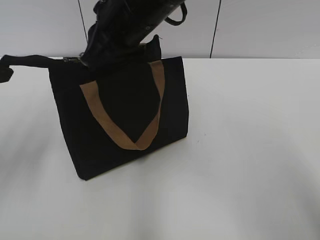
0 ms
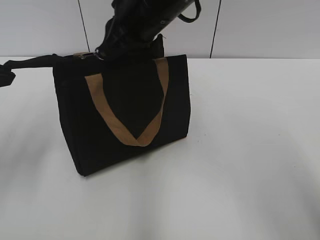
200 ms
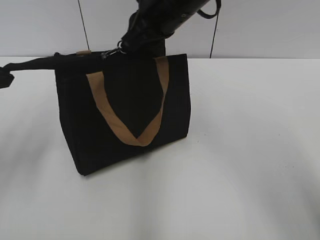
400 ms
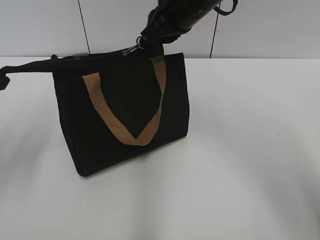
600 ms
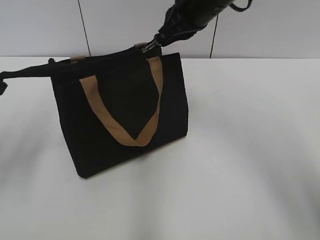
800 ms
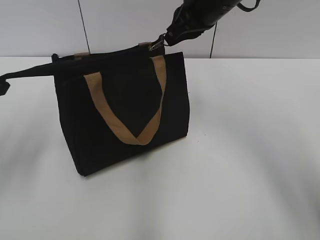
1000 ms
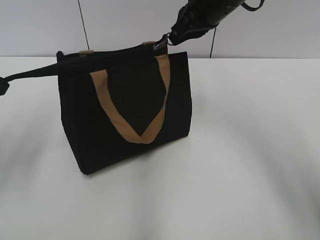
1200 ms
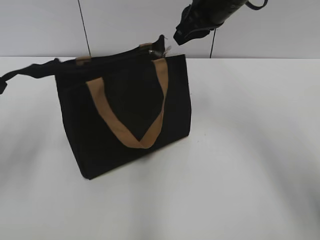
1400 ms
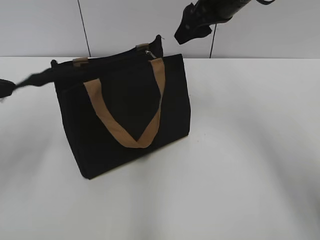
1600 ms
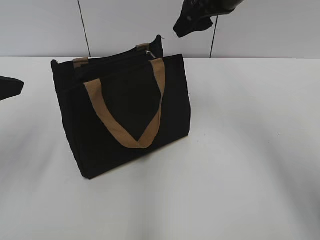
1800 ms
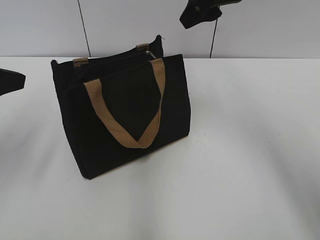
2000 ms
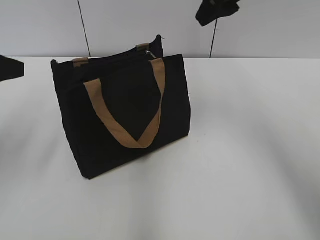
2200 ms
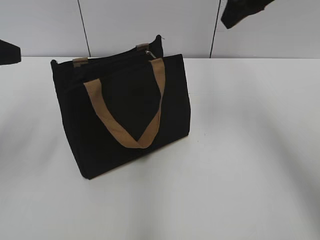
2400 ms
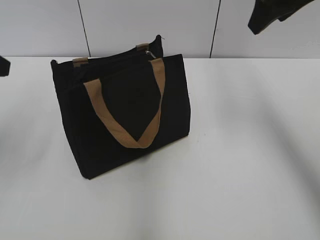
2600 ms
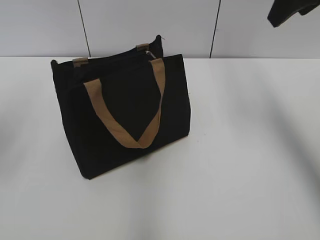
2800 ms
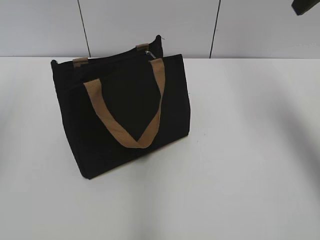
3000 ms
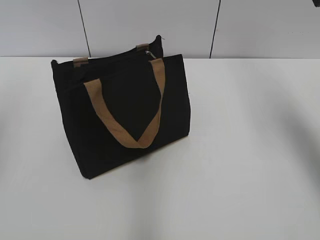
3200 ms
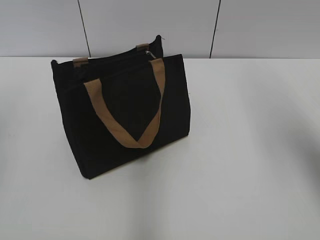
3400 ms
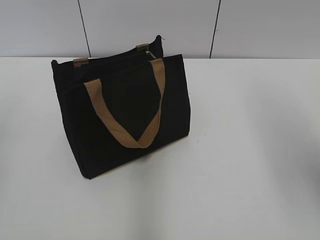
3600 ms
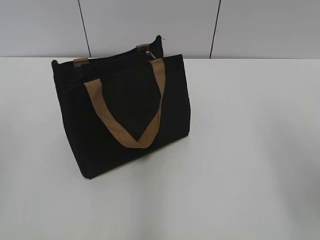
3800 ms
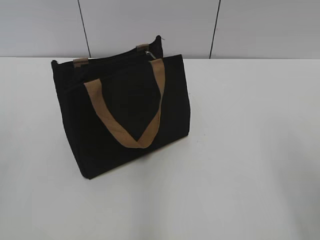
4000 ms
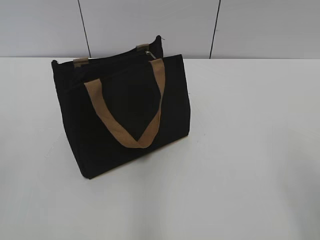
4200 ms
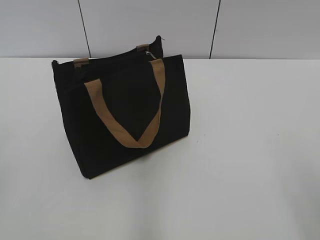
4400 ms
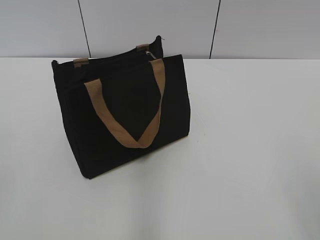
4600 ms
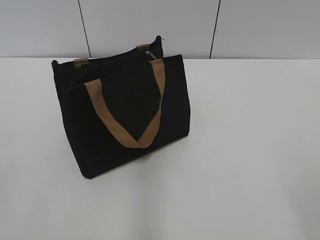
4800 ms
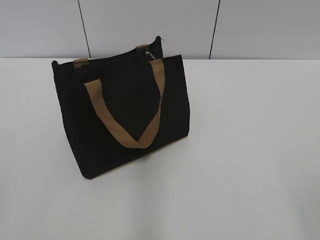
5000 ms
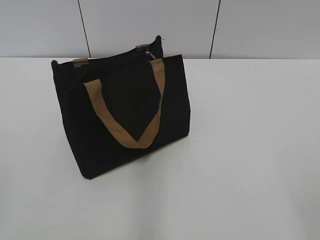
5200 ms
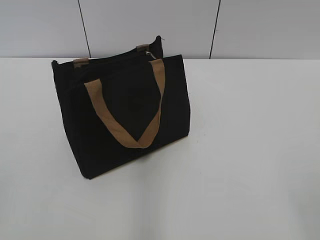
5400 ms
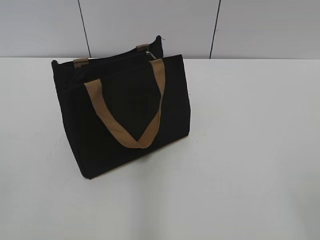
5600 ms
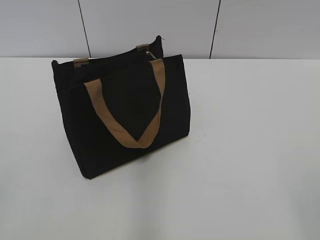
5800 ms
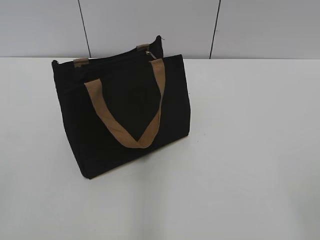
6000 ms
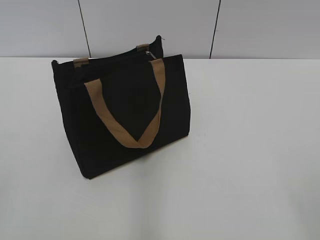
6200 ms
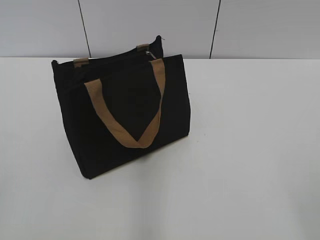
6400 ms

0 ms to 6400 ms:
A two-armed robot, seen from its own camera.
0 ms to 1600 ms: The right gripper heads to the right and forward, covering about 15 cm, and opens.
1600 ms to 3200 ms: The right gripper travels to the right, upward and backward by some 20 cm; the left gripper travels upward by roughly 5 cm, and opens up.
3200 ms to 4800 ms: The right gripper travels backward and downward by roughly 35 cm.

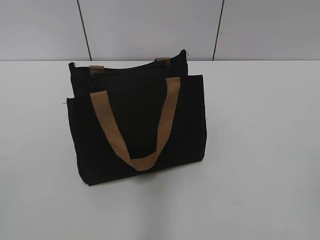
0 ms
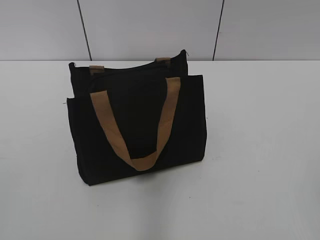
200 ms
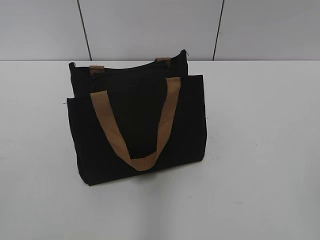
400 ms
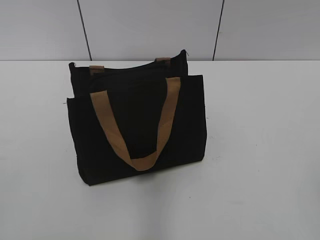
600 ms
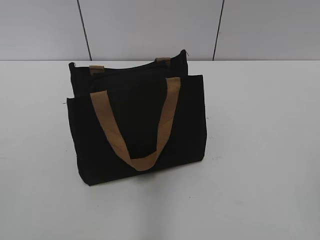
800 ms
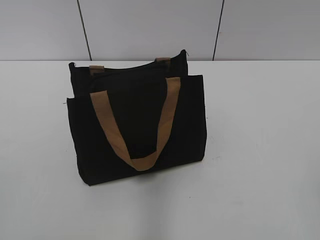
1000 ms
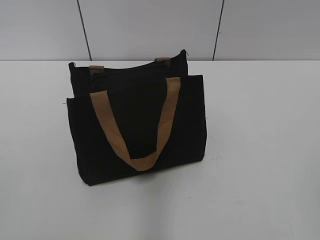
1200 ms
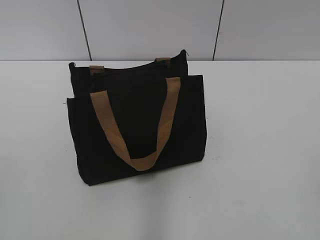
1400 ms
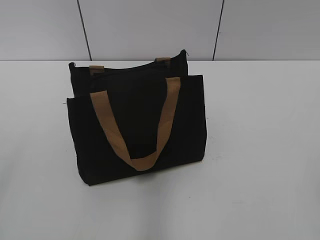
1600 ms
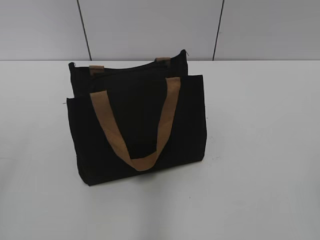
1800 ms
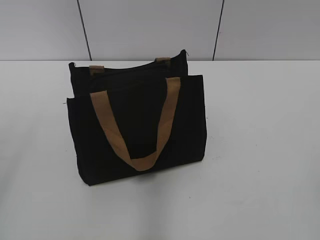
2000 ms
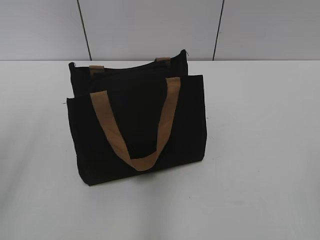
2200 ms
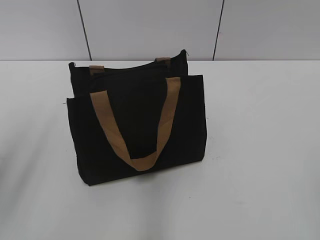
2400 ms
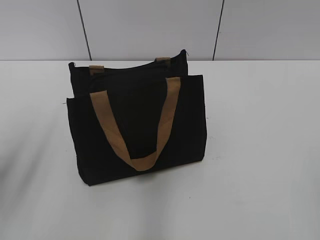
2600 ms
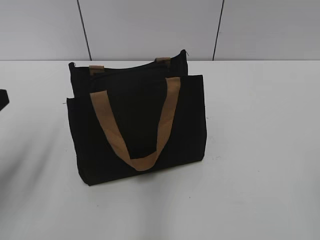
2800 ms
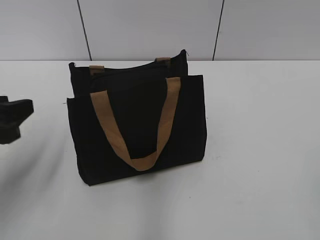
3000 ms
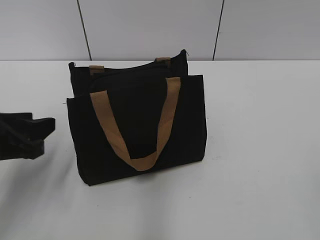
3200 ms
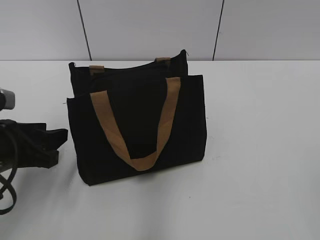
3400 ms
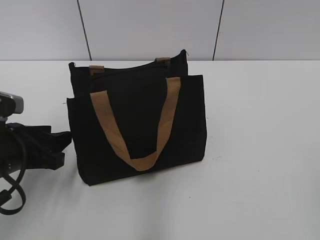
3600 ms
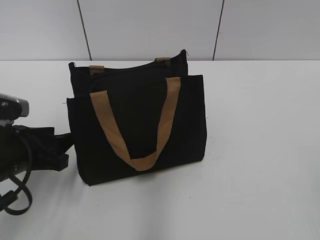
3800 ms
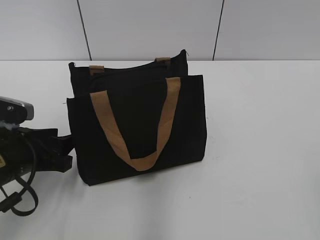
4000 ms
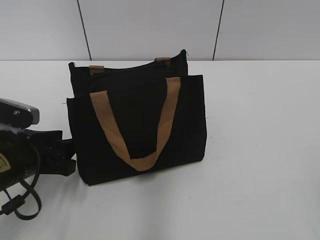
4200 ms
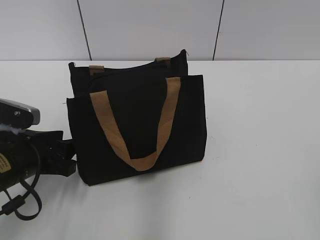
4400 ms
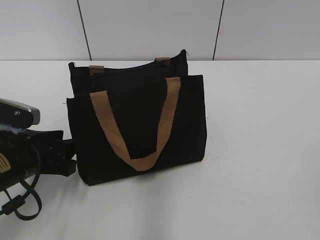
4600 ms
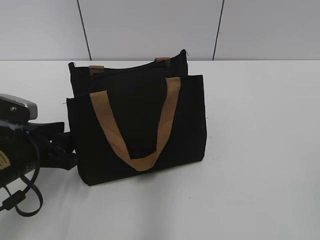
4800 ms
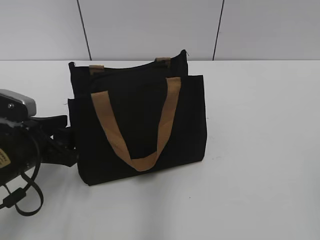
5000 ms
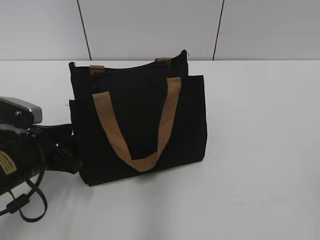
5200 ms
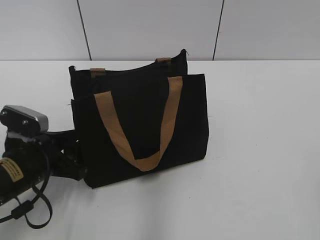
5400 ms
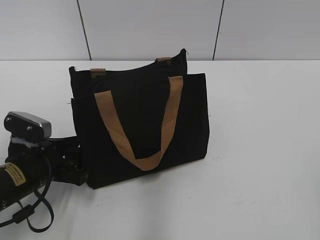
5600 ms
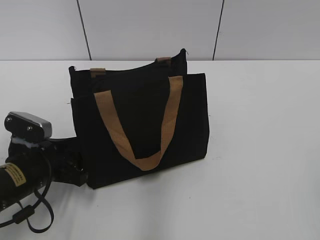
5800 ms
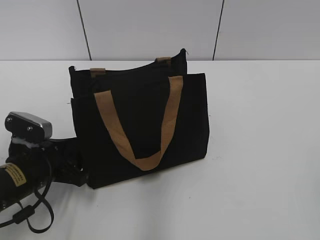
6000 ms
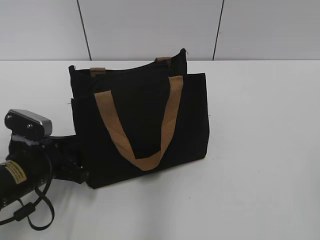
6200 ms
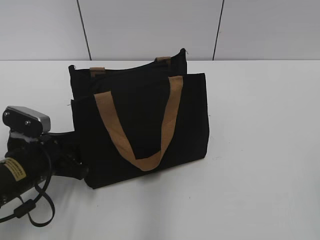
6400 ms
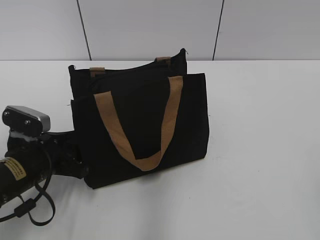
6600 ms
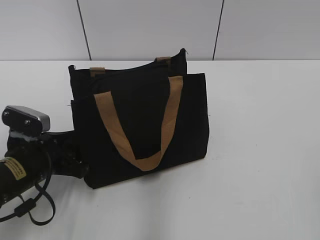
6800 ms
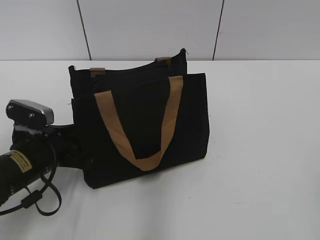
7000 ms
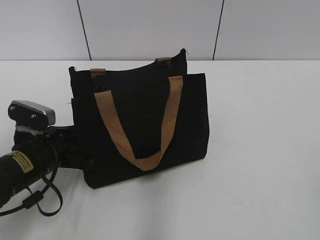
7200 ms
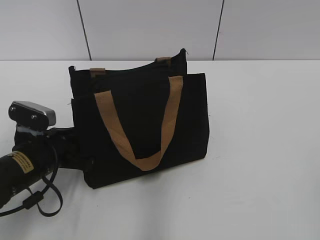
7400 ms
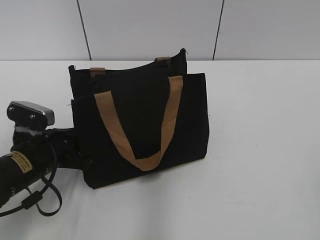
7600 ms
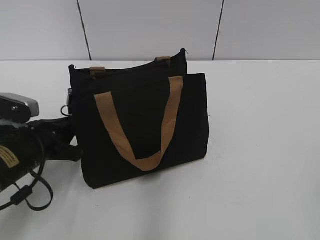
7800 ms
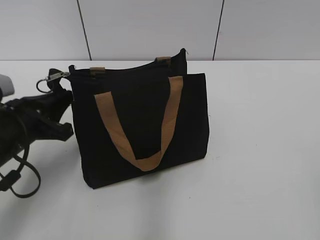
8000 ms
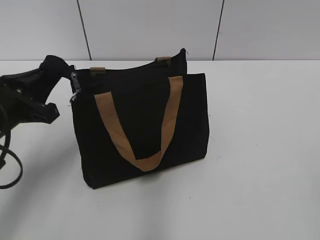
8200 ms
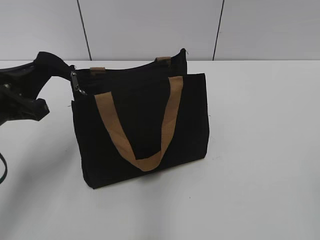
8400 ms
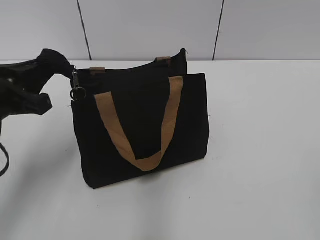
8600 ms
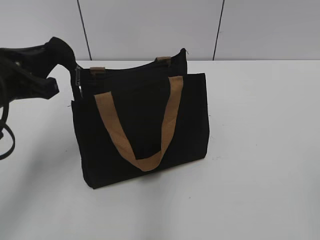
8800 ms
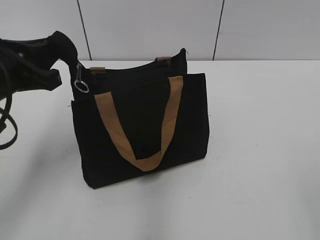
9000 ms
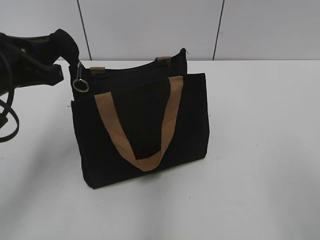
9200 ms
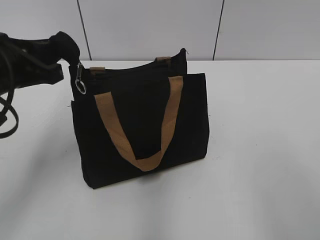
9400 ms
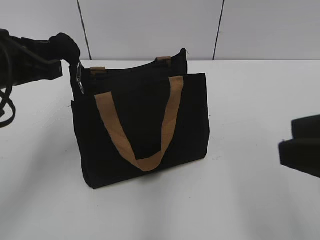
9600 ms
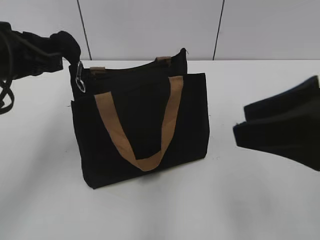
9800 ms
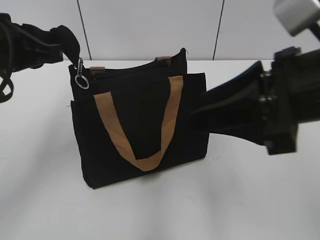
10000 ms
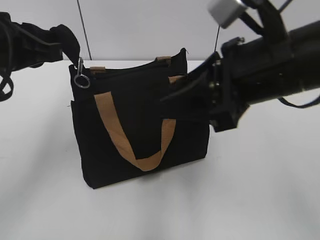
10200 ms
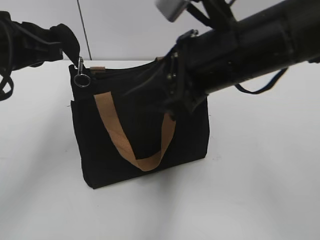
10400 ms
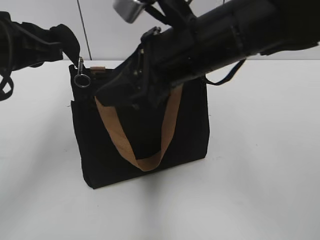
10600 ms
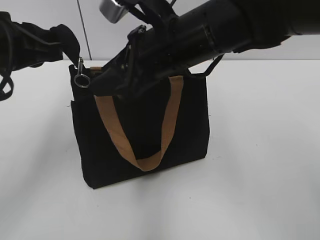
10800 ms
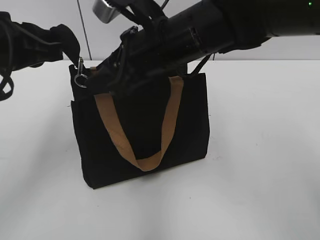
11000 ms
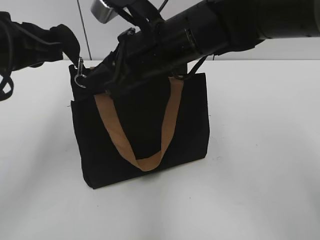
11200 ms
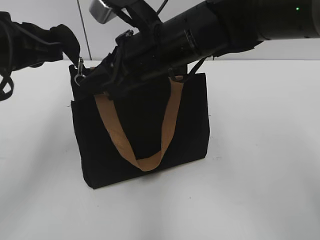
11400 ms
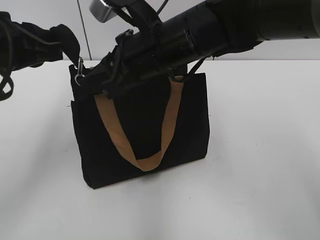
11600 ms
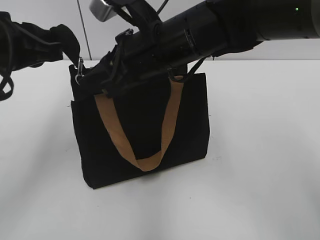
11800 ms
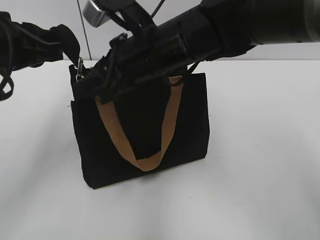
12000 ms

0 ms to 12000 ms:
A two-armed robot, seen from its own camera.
1600 ms to 3000 ms: The left gripper heads forward and downward, covering roughly 20 cm.
3000 ms to 4400 ms: The left gripper shifts roughly 10 cm downward.
4400 ms to 6000 ms: The grippers move only a little.
6000 ms to 7600 ms: The left gripper closes.
7600 ms to 9000 ms: The left gripper shifts some 15 cm upward.
9000 ms to 10400 ms: The right gripper heads forward and to the left, covering about 30 cm.
10400 ms to 12000 ms: The right gripper moves to the left and forward, approximately 10 cm.

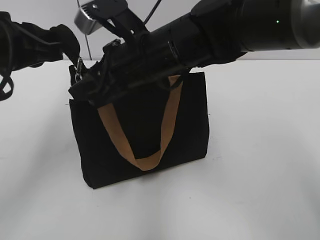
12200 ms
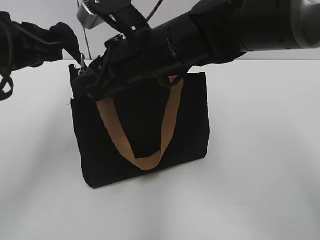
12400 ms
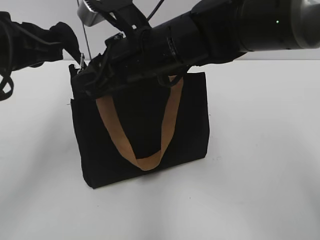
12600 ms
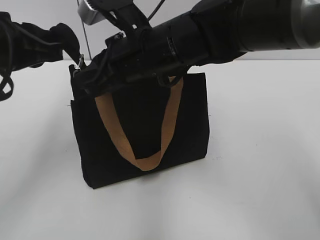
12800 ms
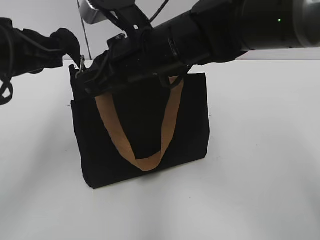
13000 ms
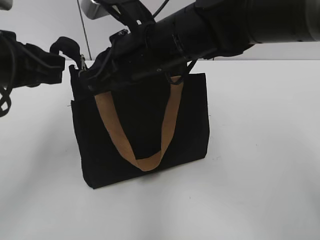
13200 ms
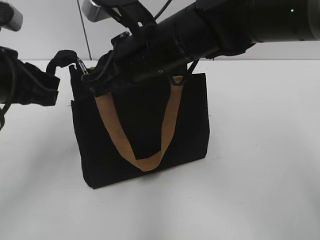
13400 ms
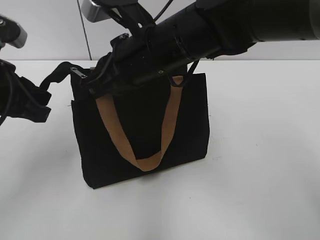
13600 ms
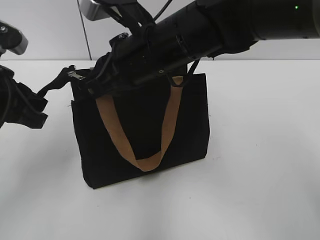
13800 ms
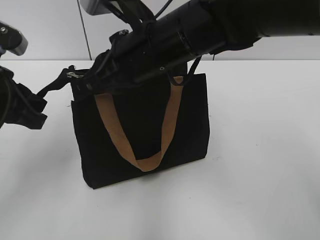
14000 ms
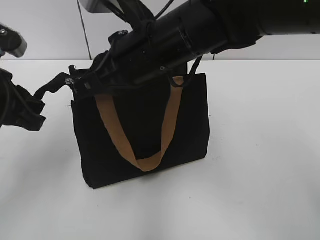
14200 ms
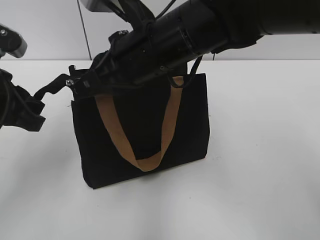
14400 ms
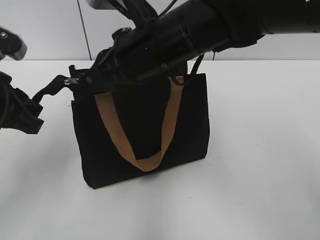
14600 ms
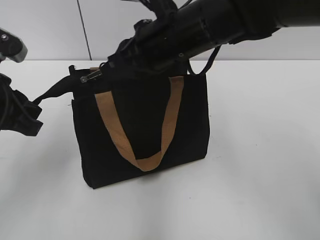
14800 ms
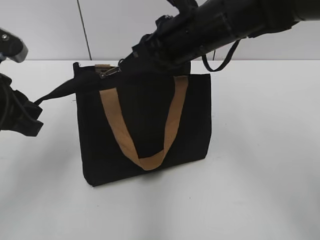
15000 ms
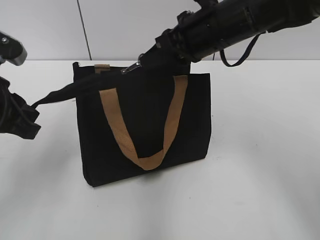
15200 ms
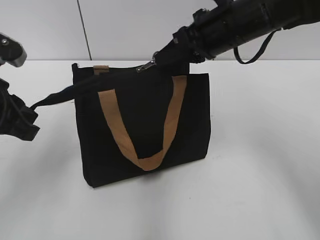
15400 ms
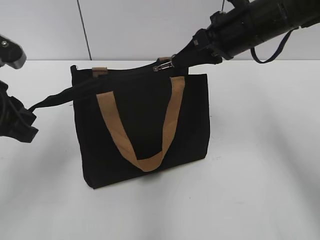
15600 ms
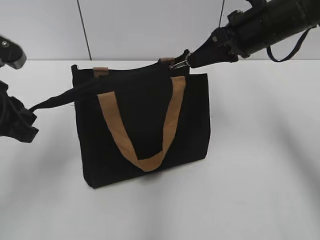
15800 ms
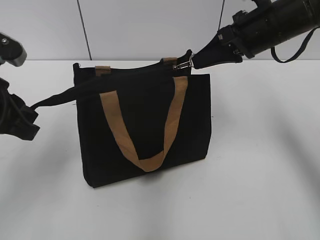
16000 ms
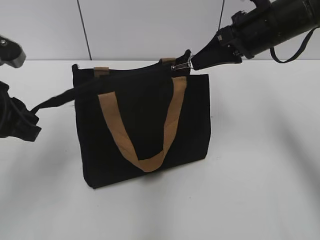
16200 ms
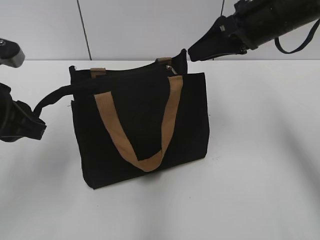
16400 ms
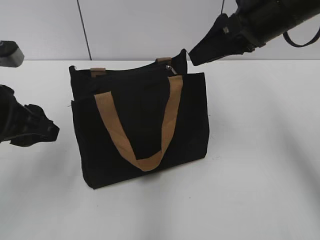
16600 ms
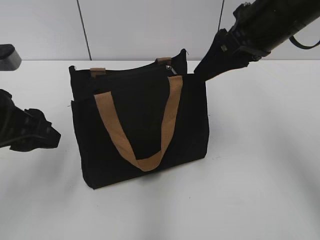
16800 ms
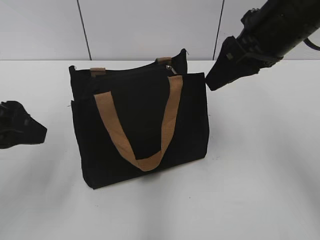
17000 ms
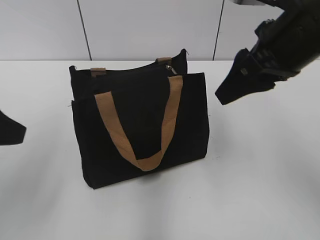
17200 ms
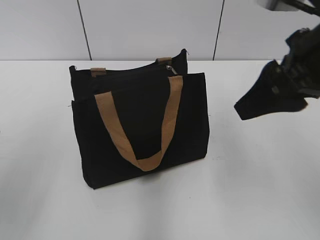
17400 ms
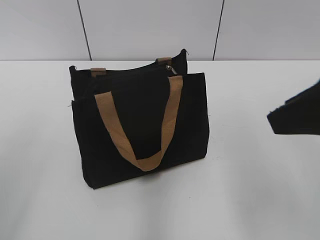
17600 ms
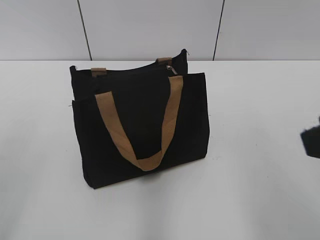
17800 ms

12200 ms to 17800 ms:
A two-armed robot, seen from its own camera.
Step, 12200 ms to 16200 ms: Zip up the bag with your right hand.
12200 ms to 13600 ms: The right gripper closes up.
13600 ms to 15000 ms: The right gripper travels to the right by roughly 5 cm.
15000 ms to 16400 ms: The right gripper heads to the right, covering about 10 cm, and opens up.
16400 ms to 17800 ms: The right gripper moves backward, approximately 25 cm; the left gripper goes approximately 20 cm backward, upward and to the left, and opens.
